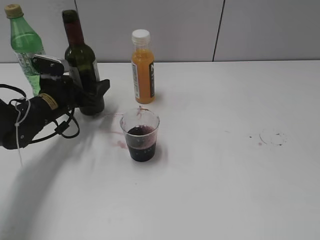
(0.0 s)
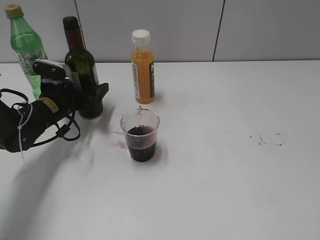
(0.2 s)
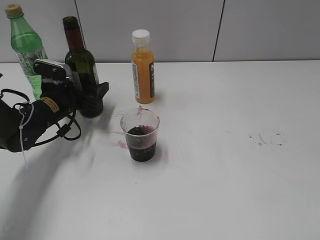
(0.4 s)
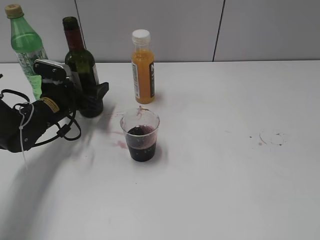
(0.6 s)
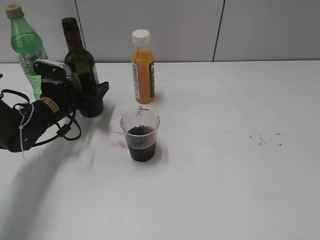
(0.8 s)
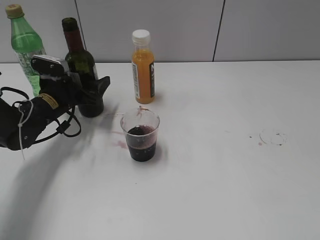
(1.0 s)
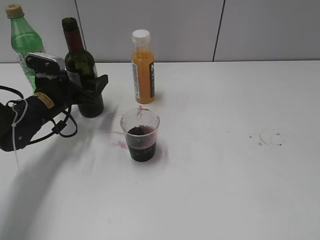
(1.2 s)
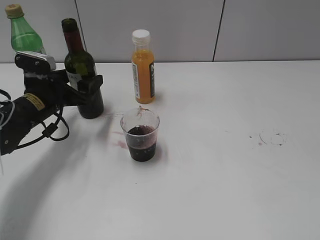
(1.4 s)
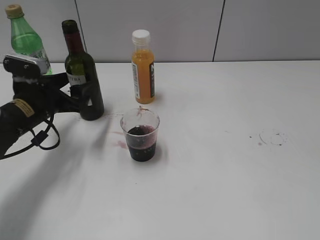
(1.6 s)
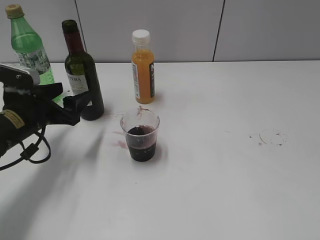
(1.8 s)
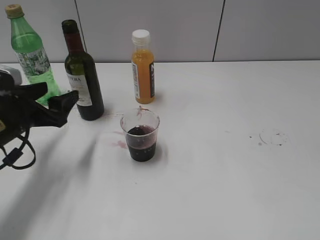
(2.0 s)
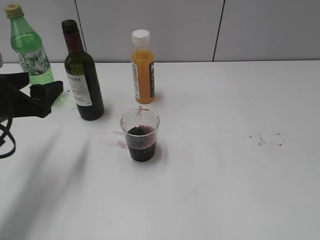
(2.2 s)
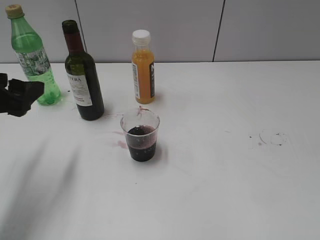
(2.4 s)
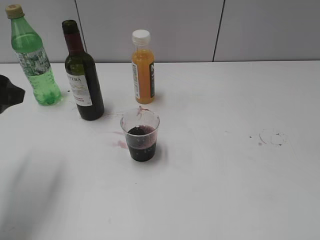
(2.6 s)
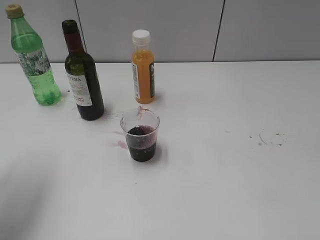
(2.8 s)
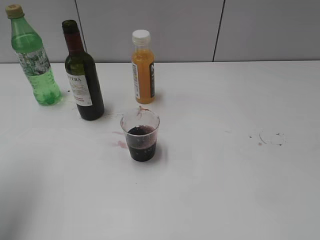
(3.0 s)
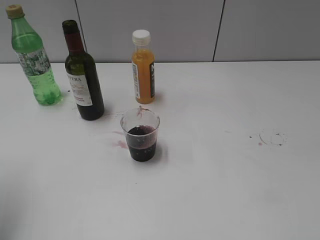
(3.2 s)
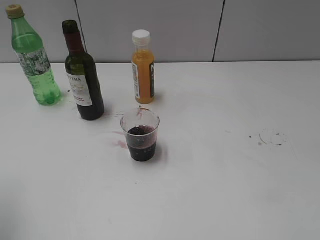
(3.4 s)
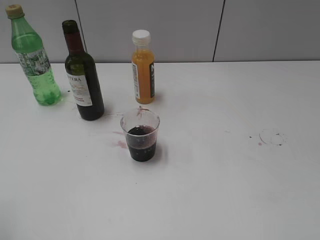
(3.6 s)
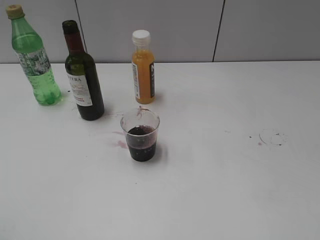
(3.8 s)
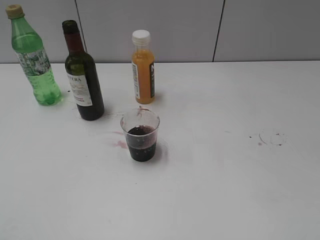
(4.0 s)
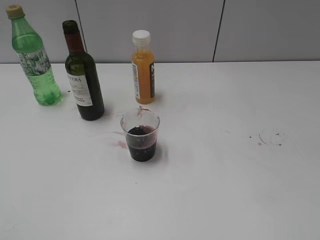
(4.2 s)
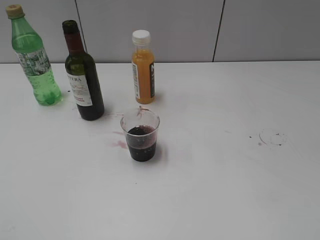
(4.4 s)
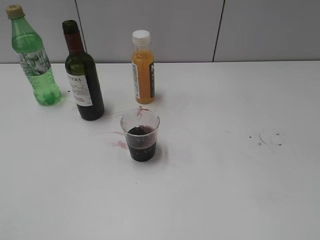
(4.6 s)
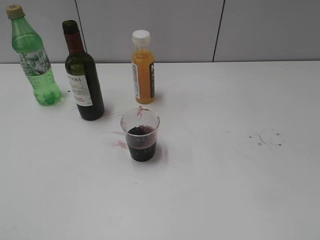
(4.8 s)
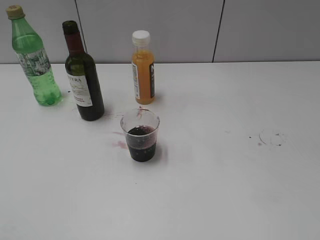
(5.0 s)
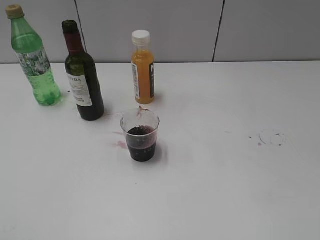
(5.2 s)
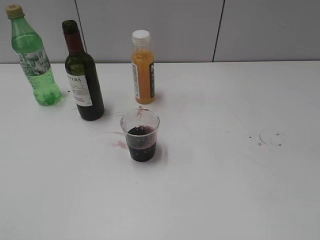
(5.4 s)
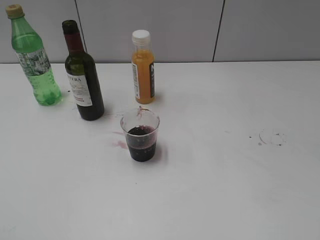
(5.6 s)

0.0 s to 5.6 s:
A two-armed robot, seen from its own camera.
Step, 0.0 to 1.6 s: Place the red wine bottle on the table with left gripper.
0.0 to 1.4 s: There are only small adjustments of the grippers.
1.4 to 2.8 s: The left gripper moves upward and backward, about 20 cm.
2.8 to 4.2 s: The left gripper goes roughly 20 cm backward.
